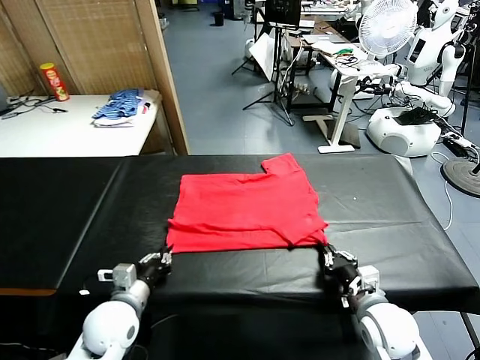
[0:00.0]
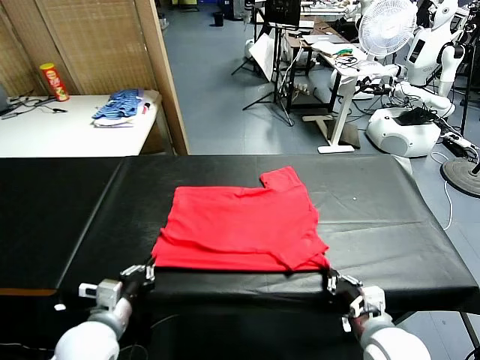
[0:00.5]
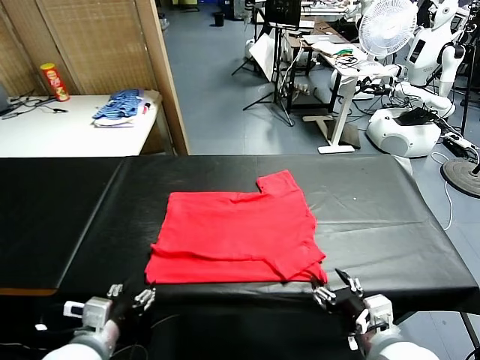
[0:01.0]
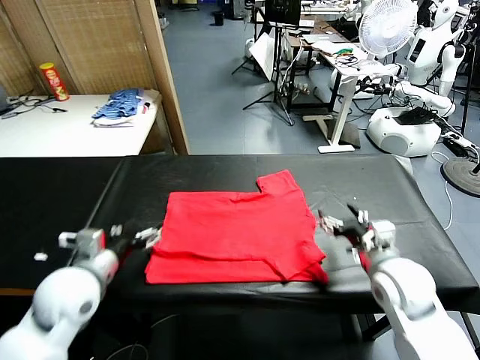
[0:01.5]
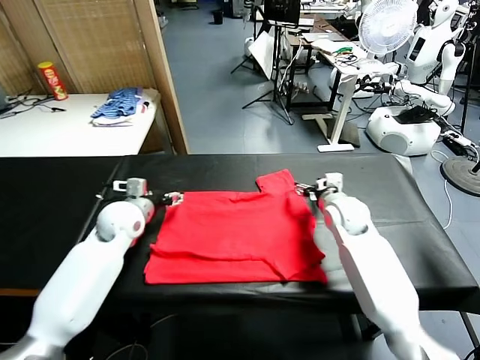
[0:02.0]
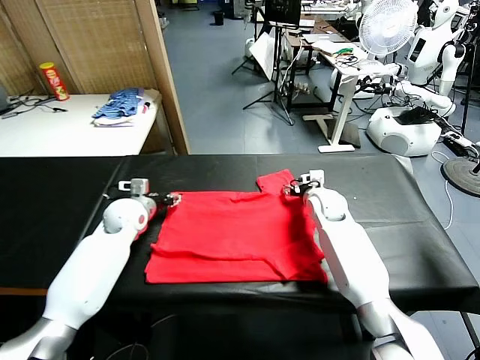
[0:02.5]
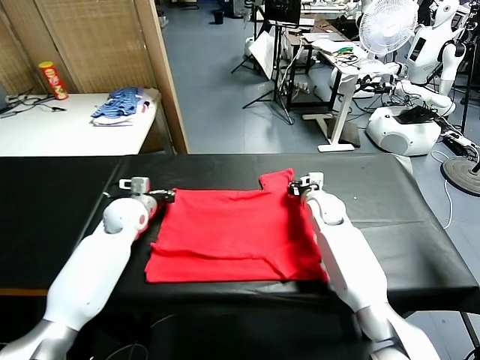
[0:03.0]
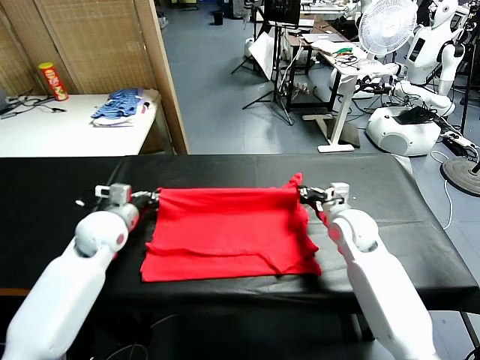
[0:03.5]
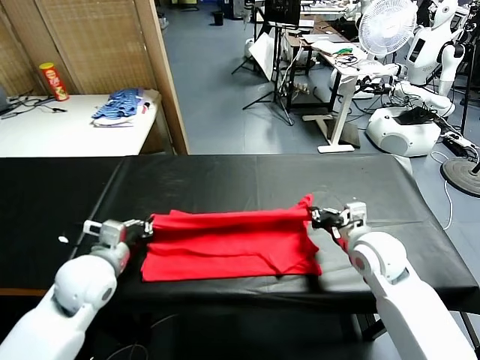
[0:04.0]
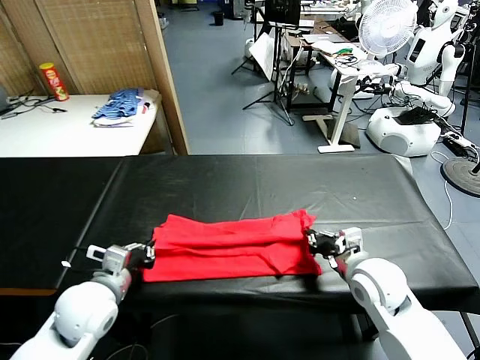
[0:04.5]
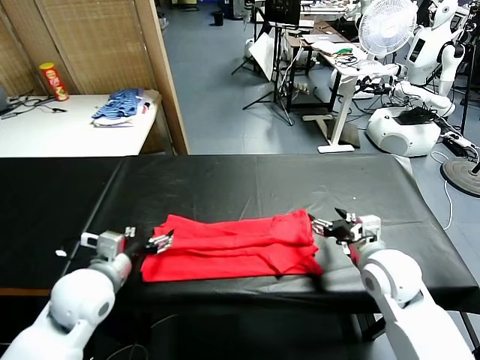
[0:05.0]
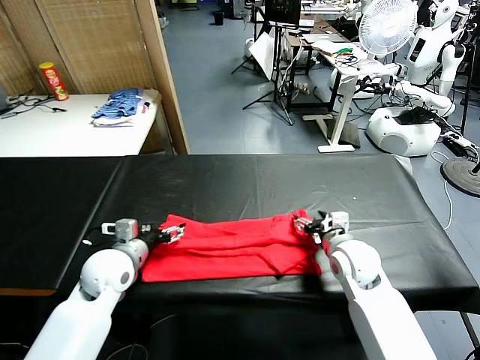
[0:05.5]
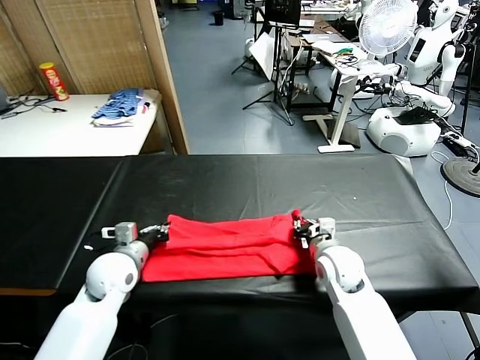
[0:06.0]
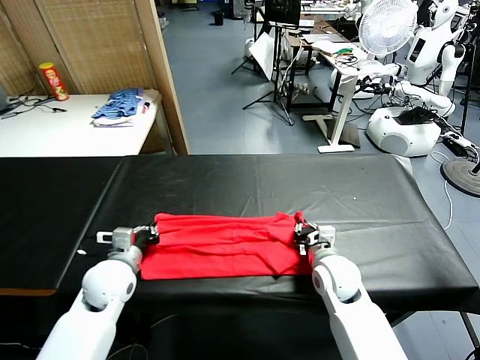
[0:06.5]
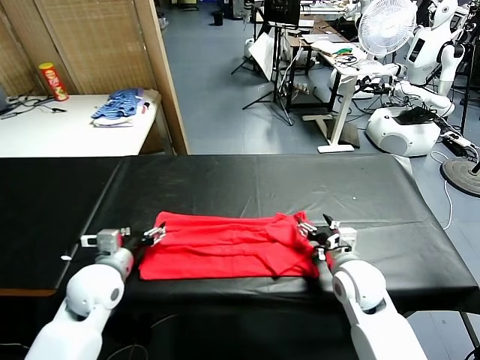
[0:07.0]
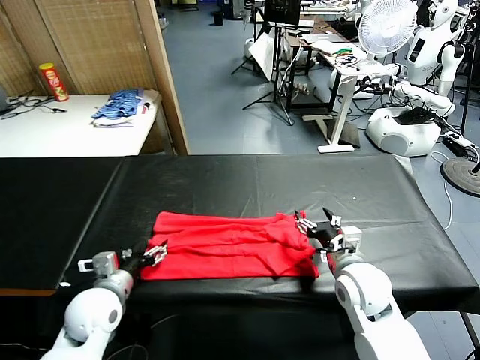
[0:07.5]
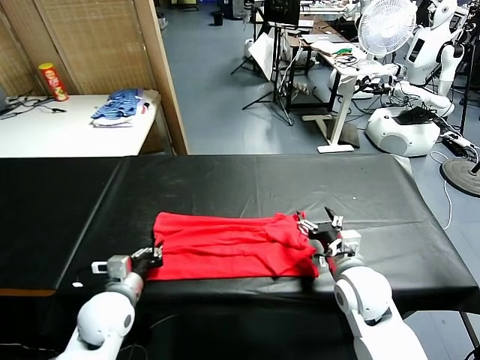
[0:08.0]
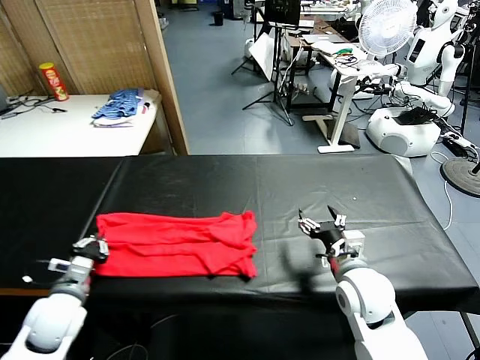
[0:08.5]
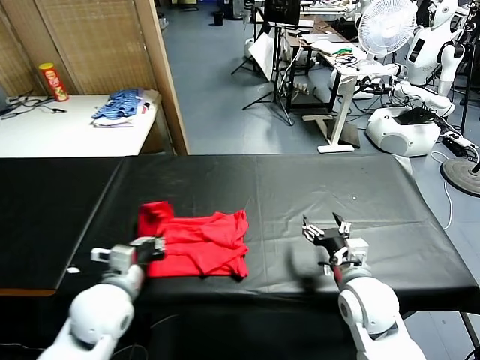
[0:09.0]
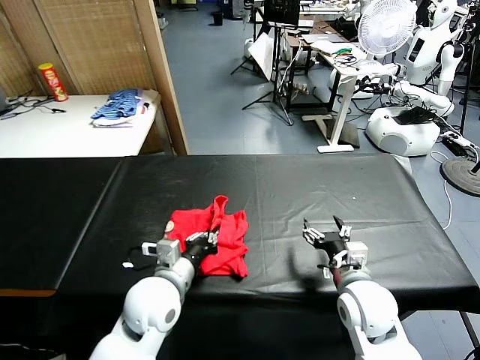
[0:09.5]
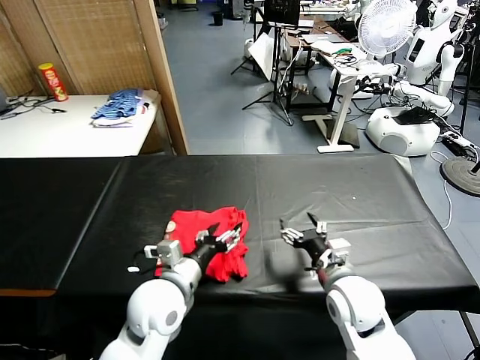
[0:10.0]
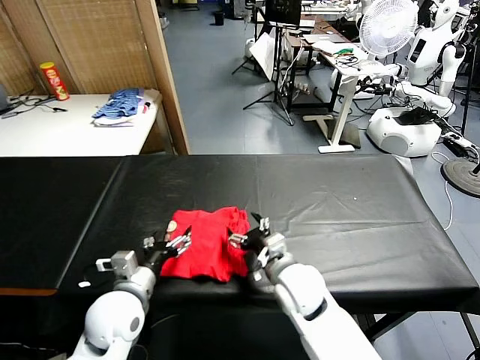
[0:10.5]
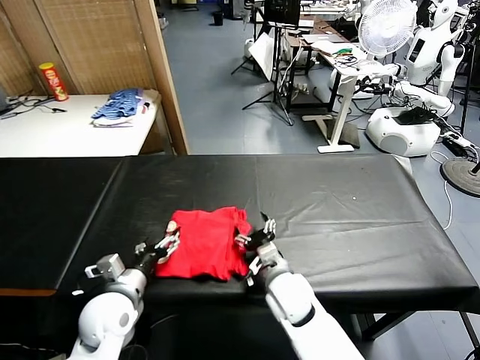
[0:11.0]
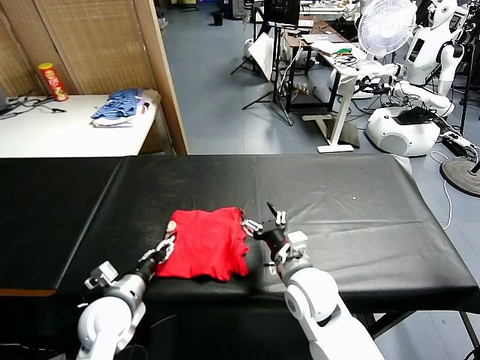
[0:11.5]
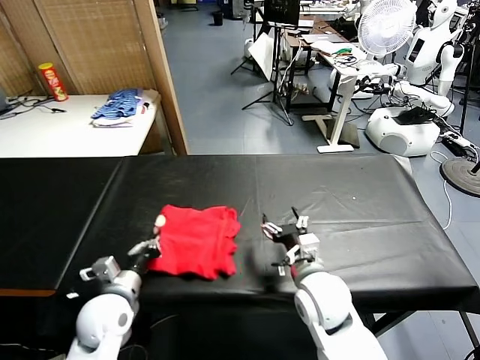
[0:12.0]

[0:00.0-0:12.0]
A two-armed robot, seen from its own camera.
Task of the whole recording: fold and organize the clothes.
Step, 0:00.0 to 0:01.0: Drag the clothes downward with both gripper.
Step, 0:01.5 to 0:03.0: use both grippers simultaneously to clamp the upper edge of the clothing fabric.
Step, 0:03.5 to 0:04.5: use both grippers to drag the upper edge of the fabric backward and fold it over the lower edge.
Step, 0:05.0 to 0:08.0: use the left gripper to clamp the left edge of the fabric.
Step, 0:08.5 to 0:10.0: use the left gripper to drag the left edge of the fabric to the left and folds it over the right edge.
0:00.0 to 0:02.0: Both grippers travel together forward, approximately 25 cm. The left gripper opens its fingers, while the right gripper opens up.
0:02.0 to 0:04.0: The two grippers go roughly 15 cm backward. The right gripper closes. The left gripper closes up.
0:04.0 to 0:06.0: The left gripper shifts about 5 cm downward, and opens and closes again. The right gripper goes roughly 10 cm downward and to the left, and opens, then closes again.
0:06.0 to 0:08.0: Both grippers move backward, roughly 5 cm. The left gripper opens and closes again, while the right gripper opens its fingers.
0:08.0 to 0:10.0: The left gripper is displaced to the right and upward by roughly 15 cm, and opens.
0:10.0 to 0:12.0: The left gripper moves to the left and downward, approximately 15 cm, and closes its fingers; the right gripper travels to the left by roughly 5 cm.

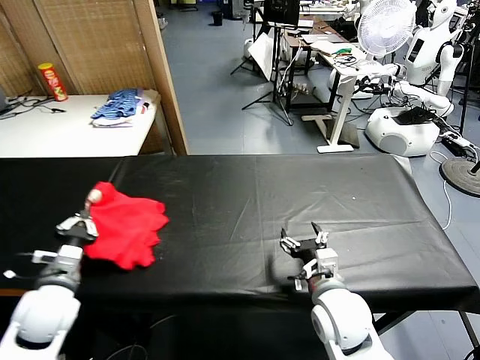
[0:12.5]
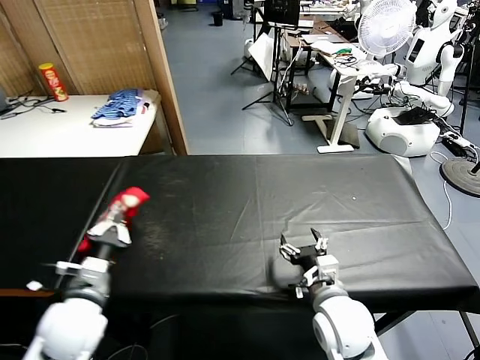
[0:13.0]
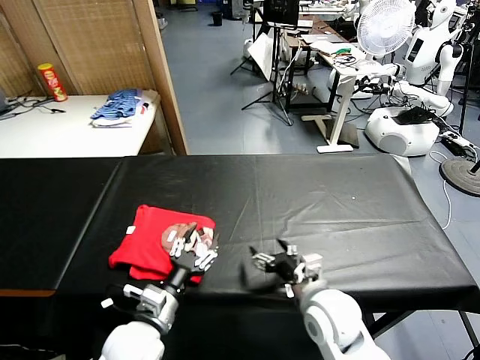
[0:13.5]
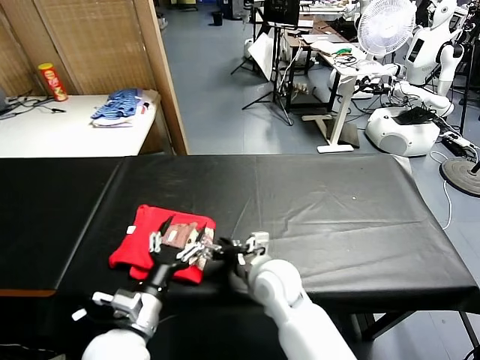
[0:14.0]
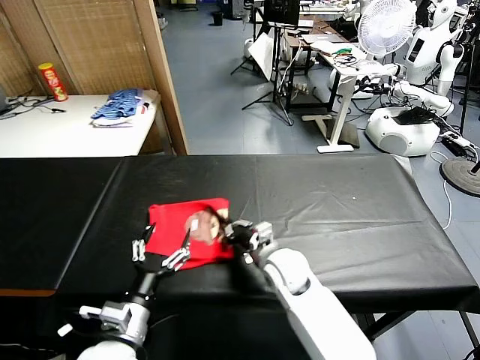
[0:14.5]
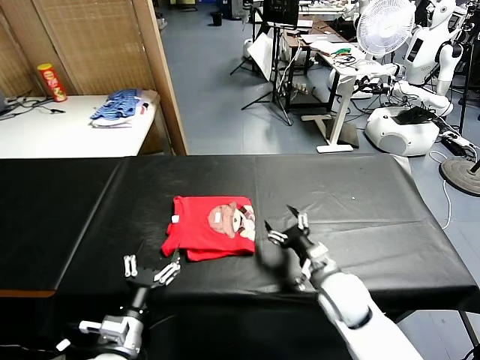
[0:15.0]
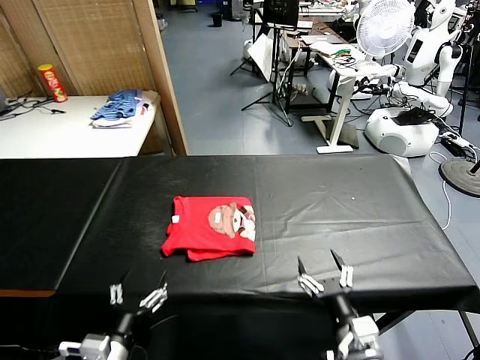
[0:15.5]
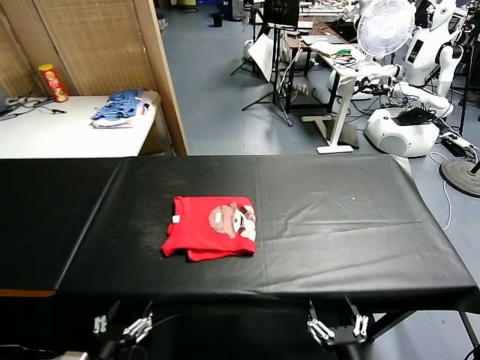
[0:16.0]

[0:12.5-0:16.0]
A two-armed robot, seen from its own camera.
Task of the whole recording: fold and organize the clothes.
Step, 0:14.0 to 0:14.5: Drag the clothes to the center of the table.
0:12.5 to 0:14.5: The left gripper moves to the right and backward, approximately 15 cm, and opens its fingers, while the right gripper goes about 15 cm forward and to the left, and closes its fingers.
0:14.5 to 0:16.0: The left gripper heads backward and to the left, covering some 10 cm. Meanwhile the right gripper moves backward and to the right, some 30 cm, and opens up.
